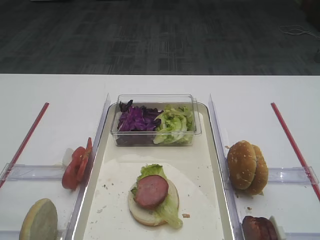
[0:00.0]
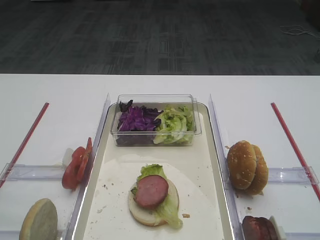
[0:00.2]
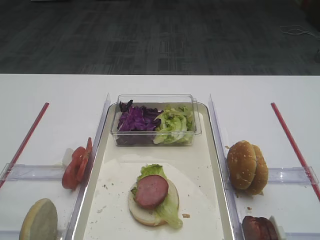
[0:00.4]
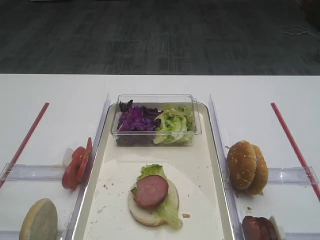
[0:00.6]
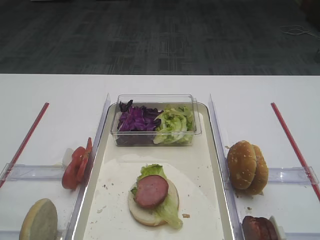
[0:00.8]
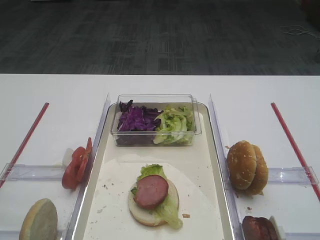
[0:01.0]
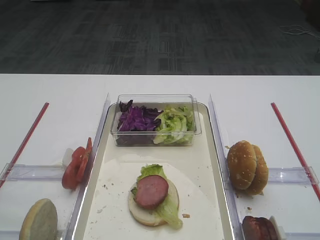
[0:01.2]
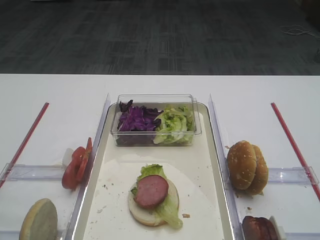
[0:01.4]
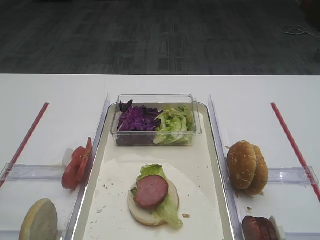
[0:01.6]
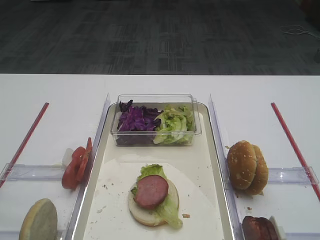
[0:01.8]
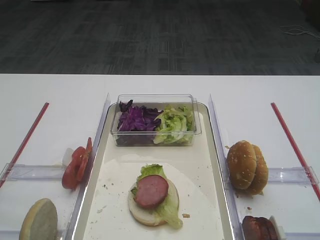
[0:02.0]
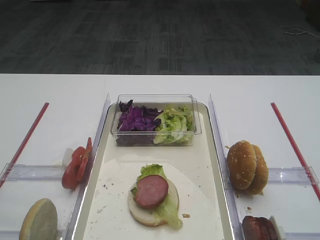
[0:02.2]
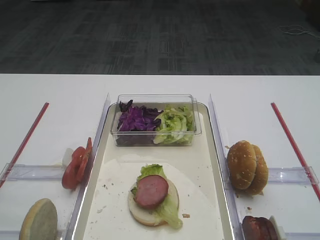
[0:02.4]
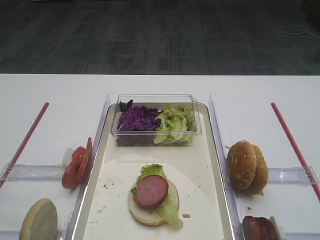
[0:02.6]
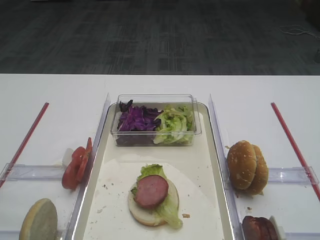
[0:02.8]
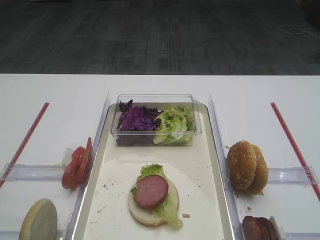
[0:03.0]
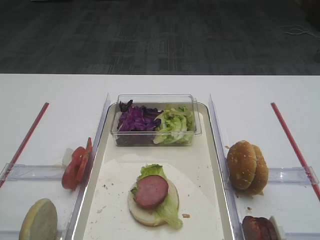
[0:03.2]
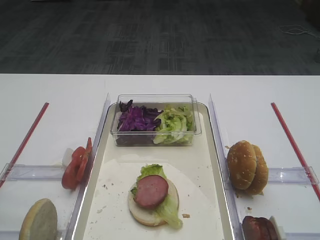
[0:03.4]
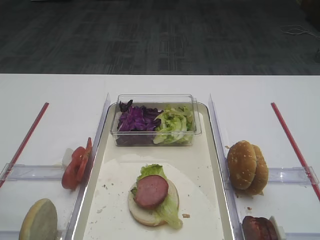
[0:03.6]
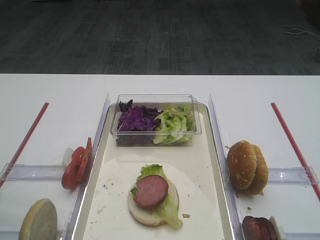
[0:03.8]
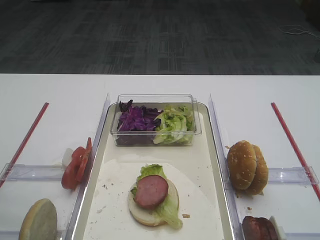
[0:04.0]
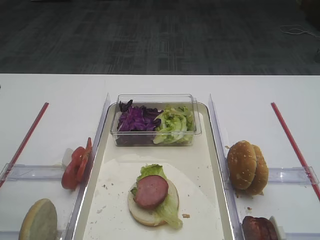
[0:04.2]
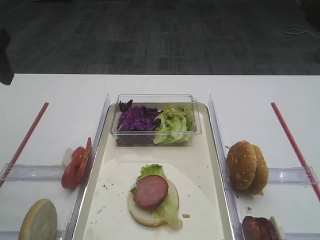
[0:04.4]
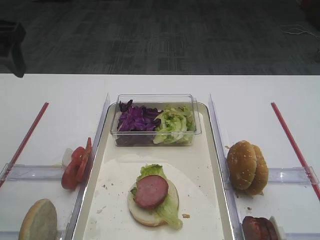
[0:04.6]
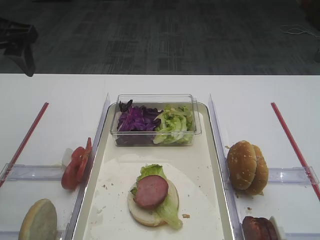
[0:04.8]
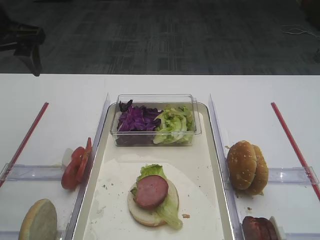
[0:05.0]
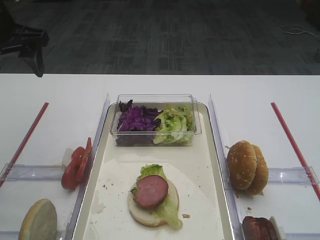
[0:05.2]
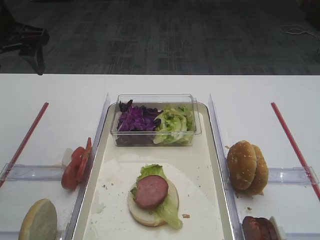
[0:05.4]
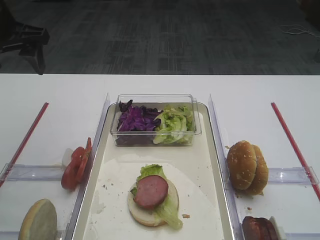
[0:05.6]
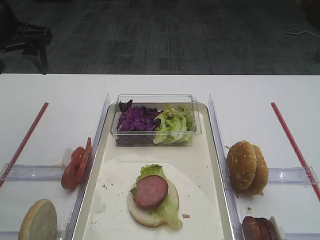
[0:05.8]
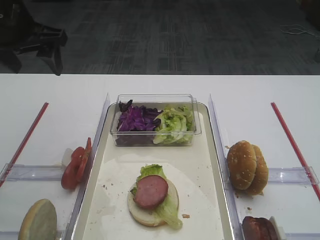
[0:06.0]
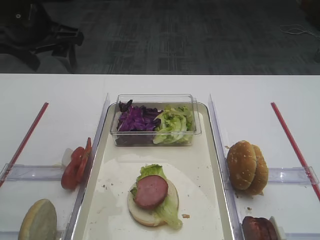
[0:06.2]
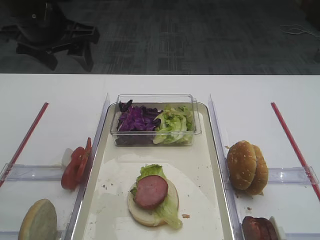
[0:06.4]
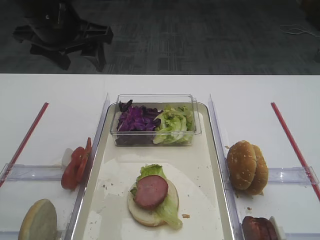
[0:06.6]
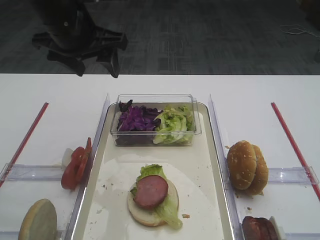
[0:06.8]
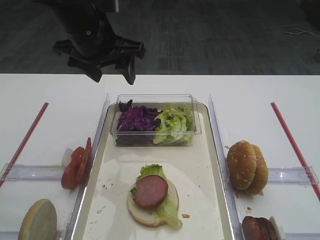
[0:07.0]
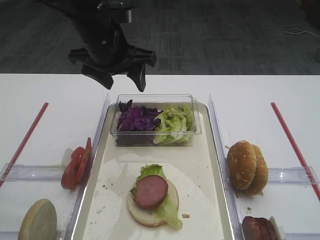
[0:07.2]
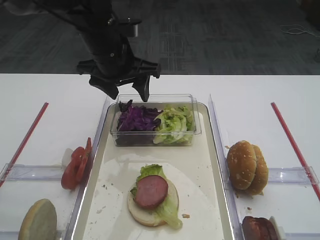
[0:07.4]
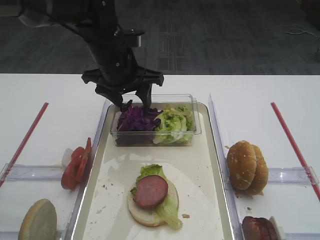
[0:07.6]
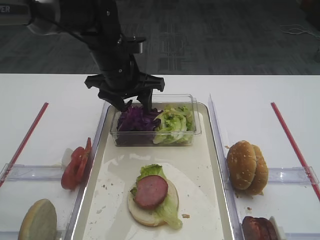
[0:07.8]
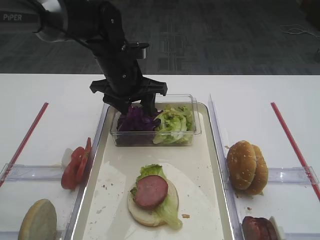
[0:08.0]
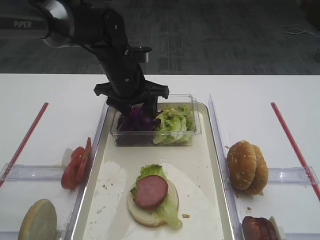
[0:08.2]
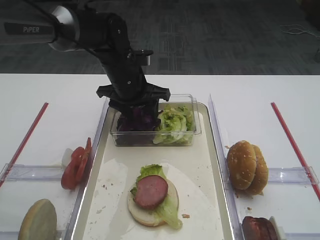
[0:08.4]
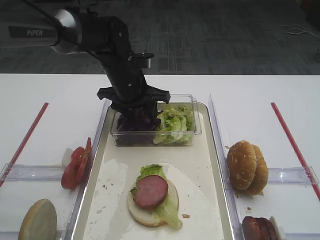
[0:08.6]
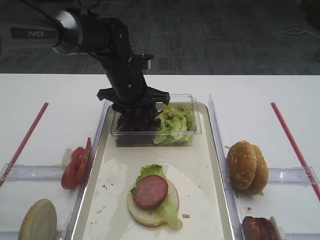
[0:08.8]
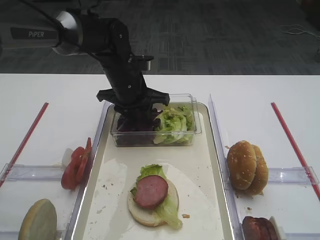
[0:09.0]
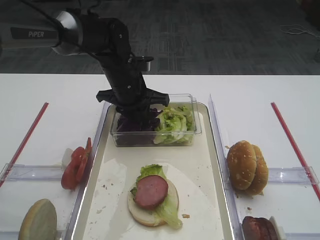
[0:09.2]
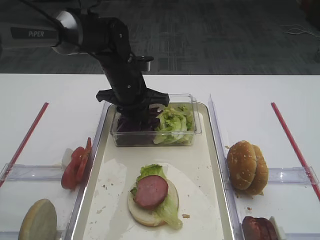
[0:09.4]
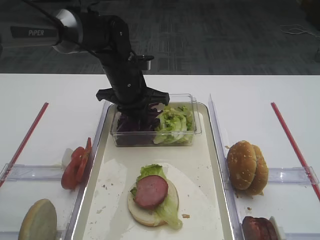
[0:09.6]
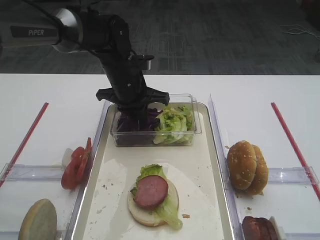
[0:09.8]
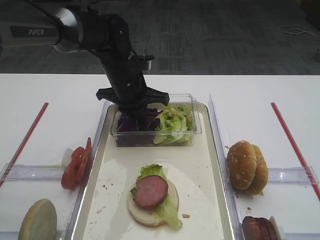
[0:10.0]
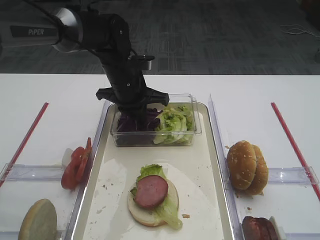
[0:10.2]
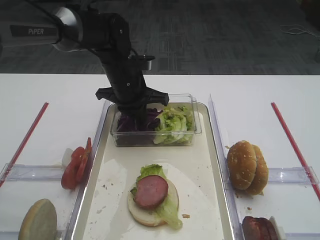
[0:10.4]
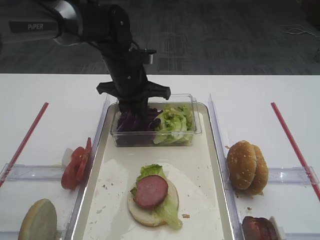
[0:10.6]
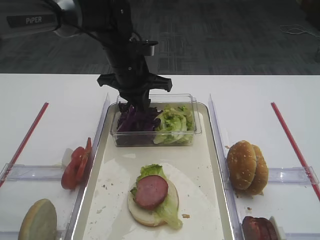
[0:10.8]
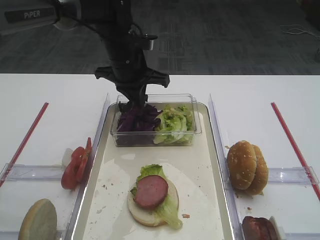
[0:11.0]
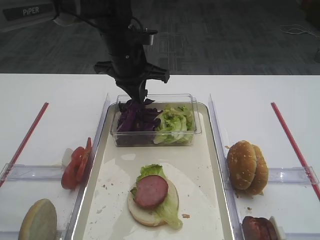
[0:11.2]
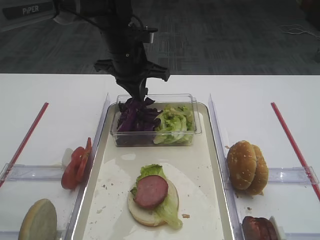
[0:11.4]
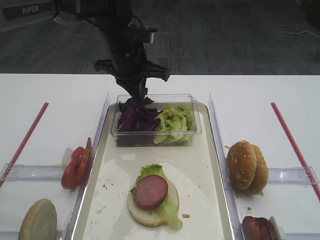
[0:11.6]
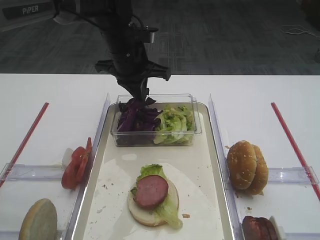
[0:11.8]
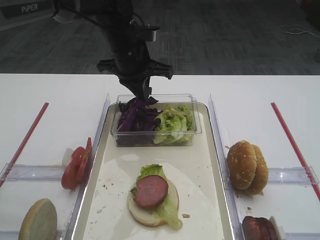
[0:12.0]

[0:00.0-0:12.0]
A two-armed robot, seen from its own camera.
Step, 0:00.0 to 0:11.0: Pick up the purple cabbage with the left gripper.
0:04.4 to 0:06.0: The left gripper goes approximately 10 cm forward.
0:06.0 to 0:07.6: The left gripper goes approximately 15 cm to the right and downward.
0:07.6 to 0:09.0: The left gripper heads downward, covering some 5 cm.
0:09.0 to 0:10.4: The left gripper closes its fingers.
0:10.4 to 0:12.0: The left gripper goes roughly 5 cm upward.

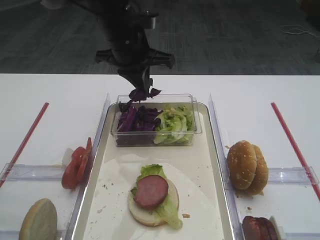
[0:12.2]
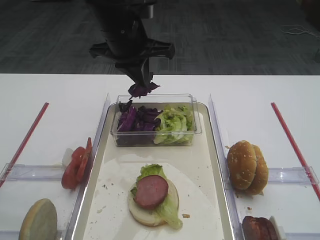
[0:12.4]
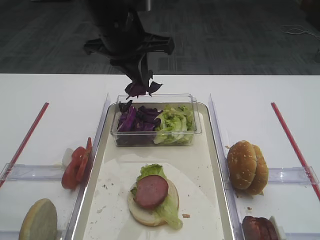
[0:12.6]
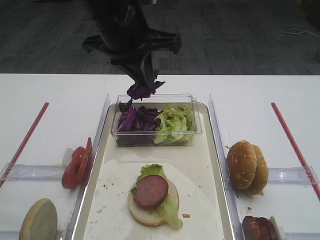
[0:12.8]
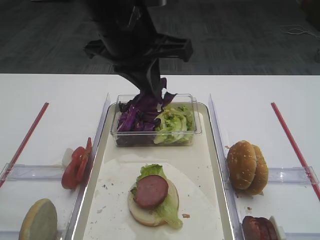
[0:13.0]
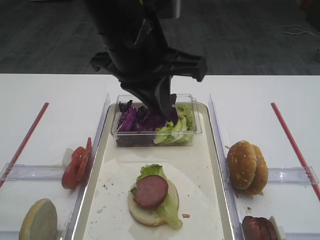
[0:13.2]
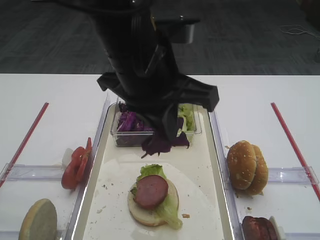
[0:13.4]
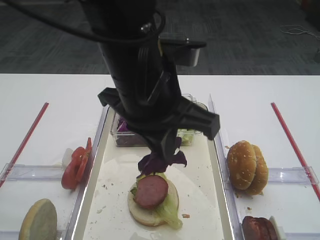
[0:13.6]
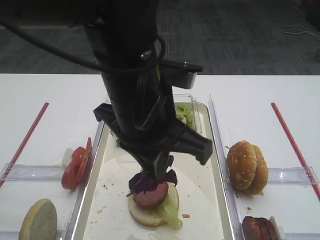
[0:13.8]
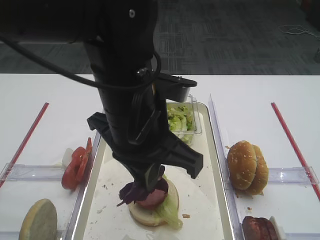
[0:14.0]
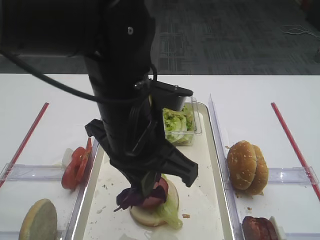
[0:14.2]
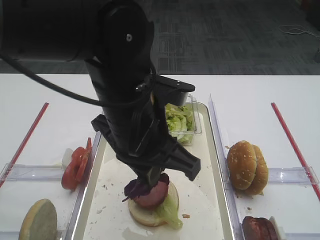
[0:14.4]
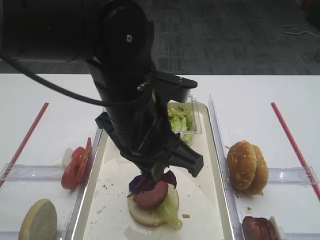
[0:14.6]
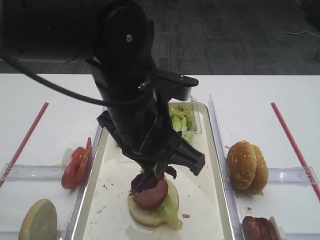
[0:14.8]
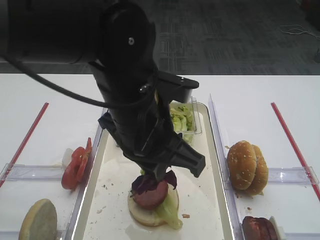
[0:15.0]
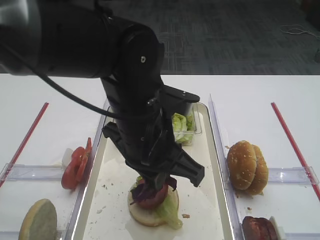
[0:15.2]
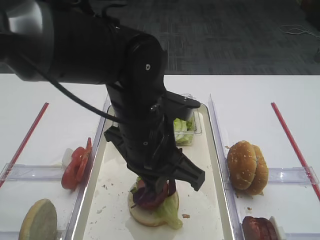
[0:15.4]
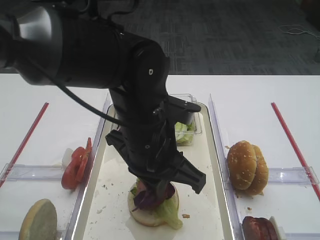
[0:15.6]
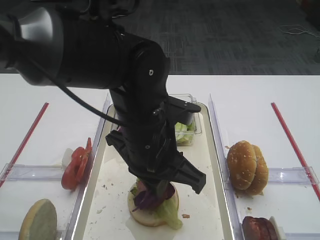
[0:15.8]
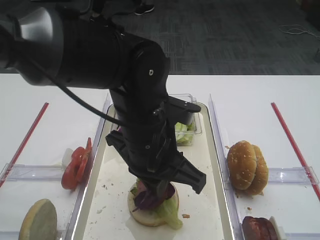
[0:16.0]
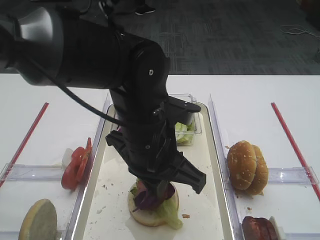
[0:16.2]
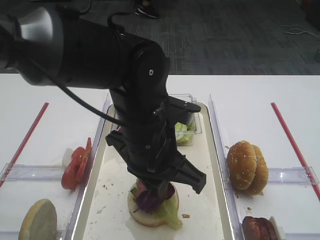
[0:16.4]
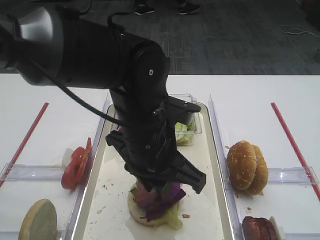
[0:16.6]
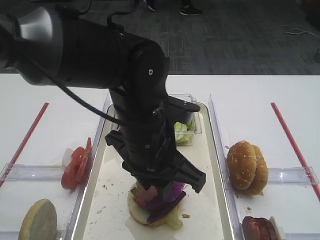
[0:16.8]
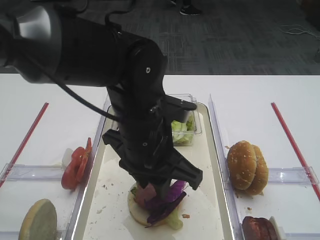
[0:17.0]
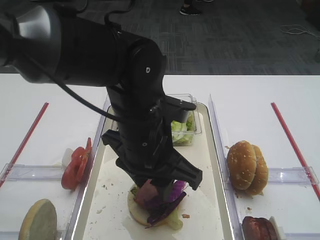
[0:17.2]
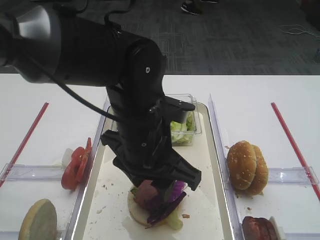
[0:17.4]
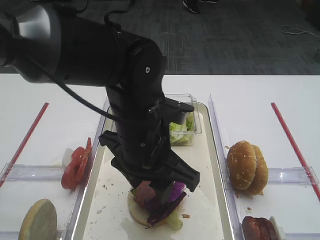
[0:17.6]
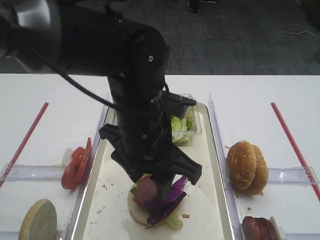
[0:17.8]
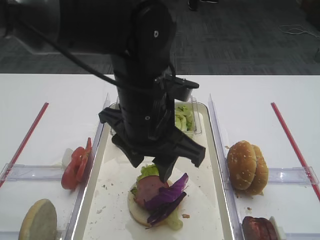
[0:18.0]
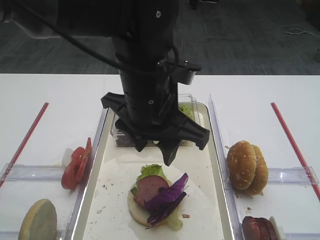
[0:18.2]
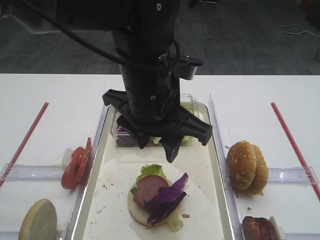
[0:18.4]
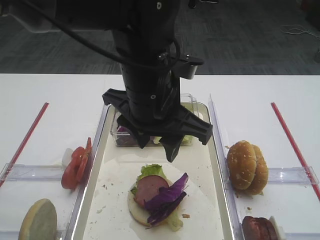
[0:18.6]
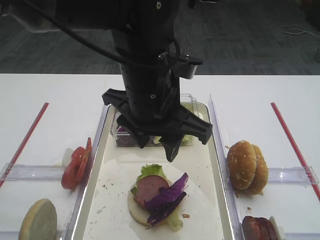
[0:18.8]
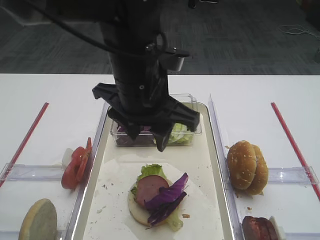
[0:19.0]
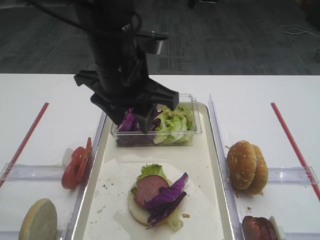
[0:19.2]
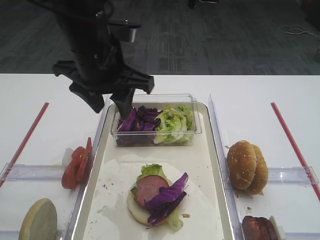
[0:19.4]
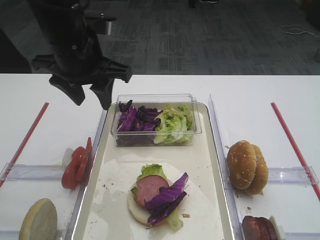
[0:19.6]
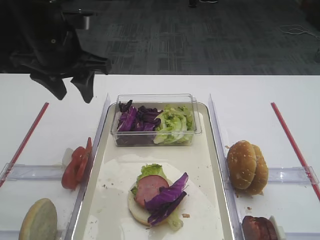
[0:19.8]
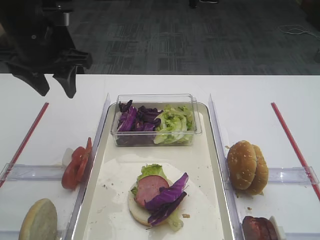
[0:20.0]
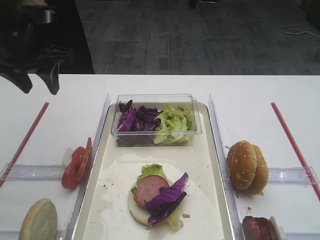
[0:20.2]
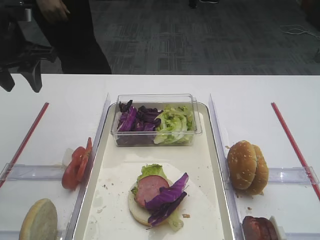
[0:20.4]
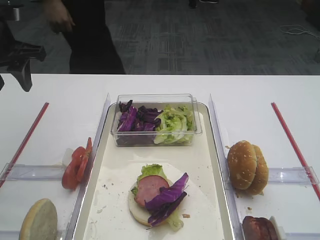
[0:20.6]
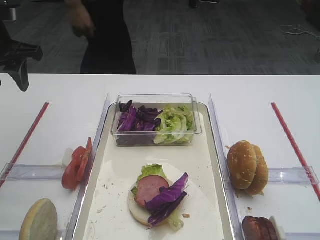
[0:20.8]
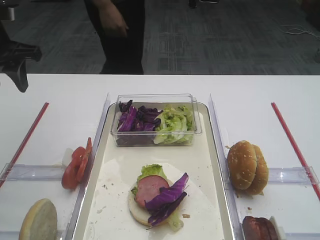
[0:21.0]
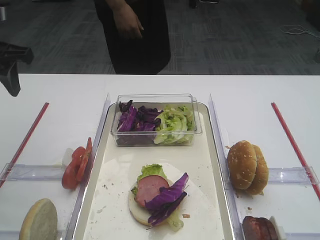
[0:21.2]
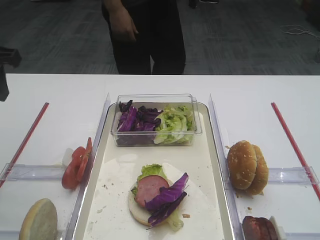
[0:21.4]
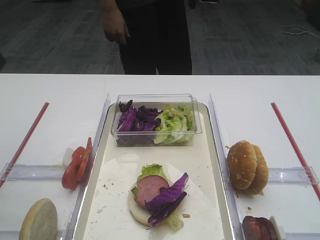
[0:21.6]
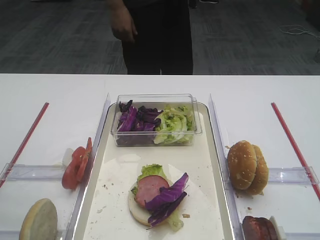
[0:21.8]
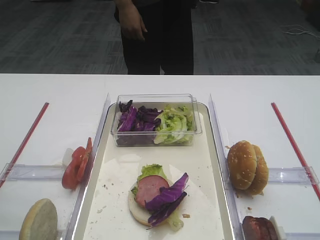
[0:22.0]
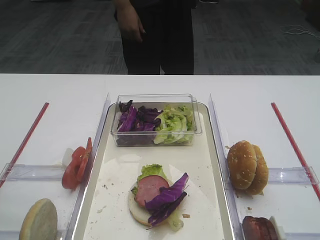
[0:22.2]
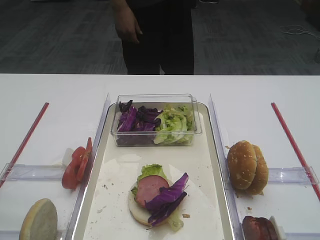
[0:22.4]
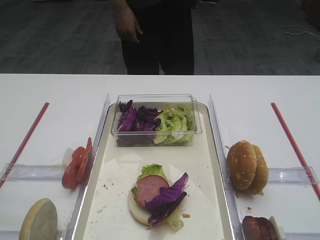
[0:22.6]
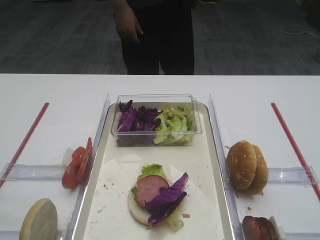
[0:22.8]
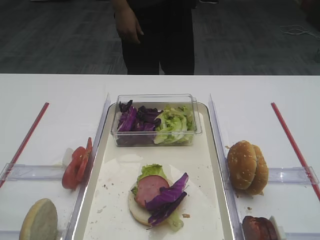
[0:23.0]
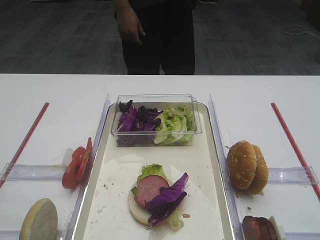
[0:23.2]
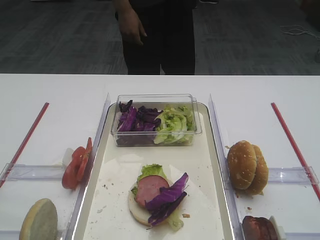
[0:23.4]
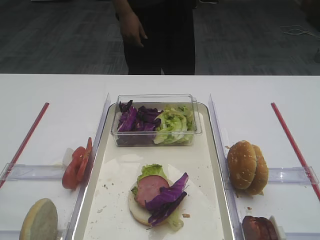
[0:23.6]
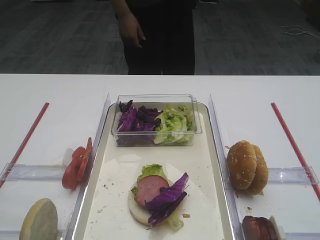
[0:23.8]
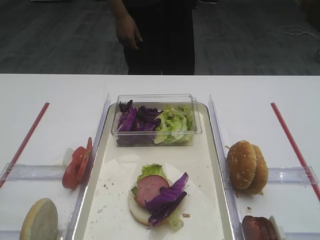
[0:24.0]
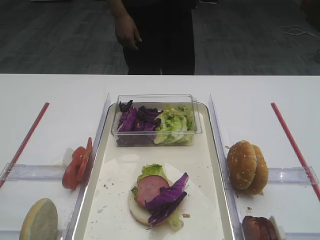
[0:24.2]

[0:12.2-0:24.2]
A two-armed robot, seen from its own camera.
Step, 0:12.2 to 0:17.6: Place the purple cabbage on the cutlet with the left gripper.
0:12.2 to 0:13.8: The left gripper heads backward, covering approximately 20 cm.
0:13.8 to 0:15.2: The left gripper moves downward, about 5 cm.
0:15.2 to 0:16.6: The grippers move only a little.
0:16.6 to 0:18.2: The left gripper moves upward, approximately 5 cm, and opens.
0:18.2 to 0:19.8: The left gripper moves to the left and forward, some 15 cm.
0:19.8 to 0:21.2: The left gripper moves to the left, roughly 10 cm.
0:21.2 to 0:22.6: The left gripper goes about 25 cm backward.
